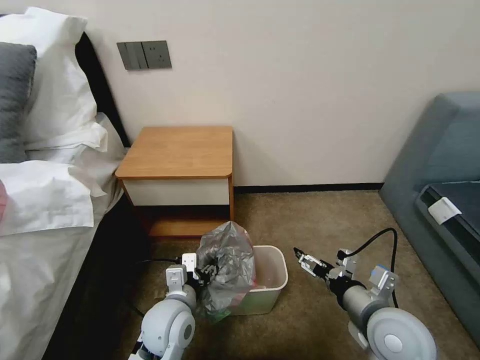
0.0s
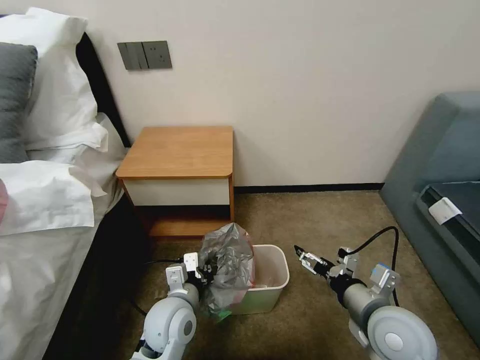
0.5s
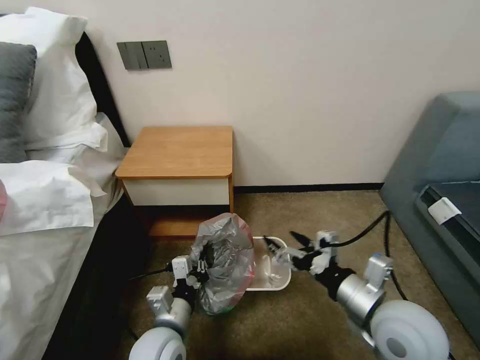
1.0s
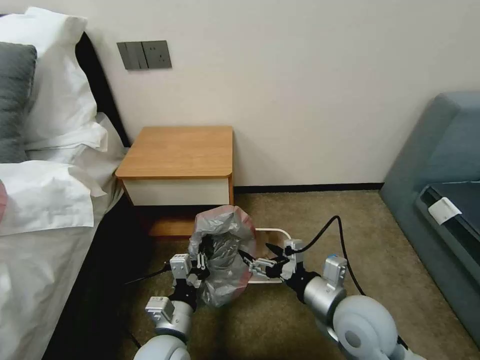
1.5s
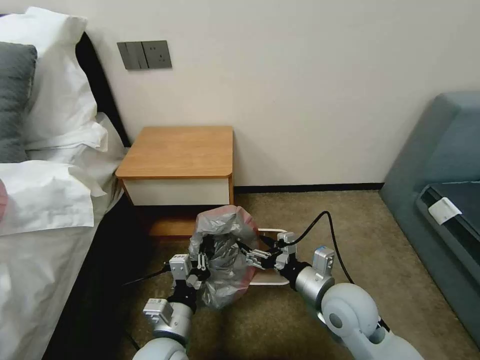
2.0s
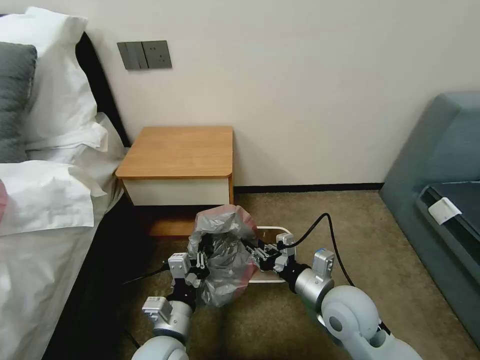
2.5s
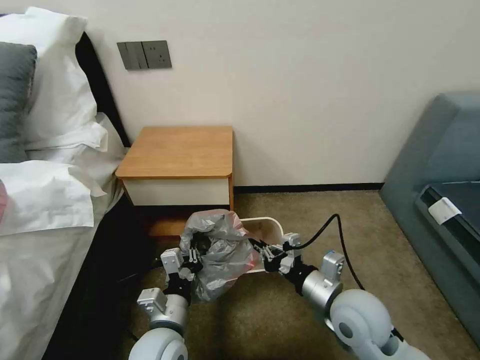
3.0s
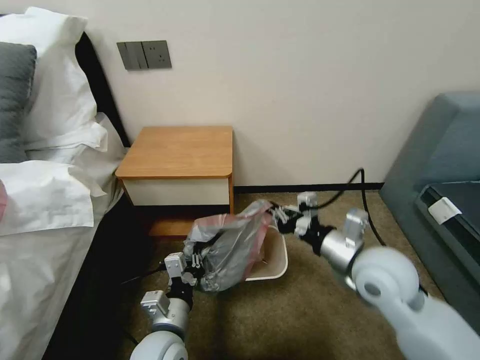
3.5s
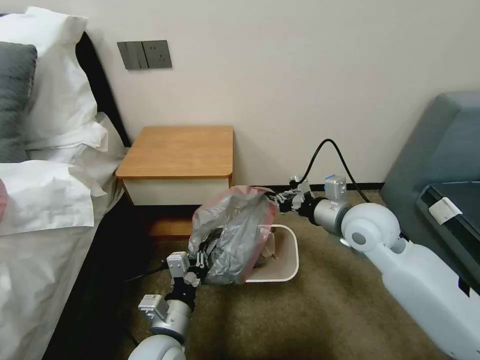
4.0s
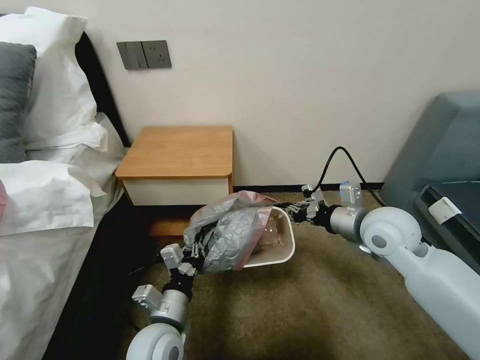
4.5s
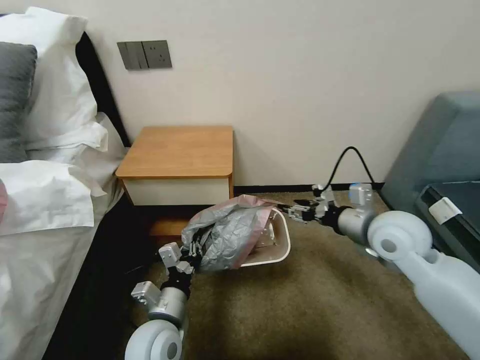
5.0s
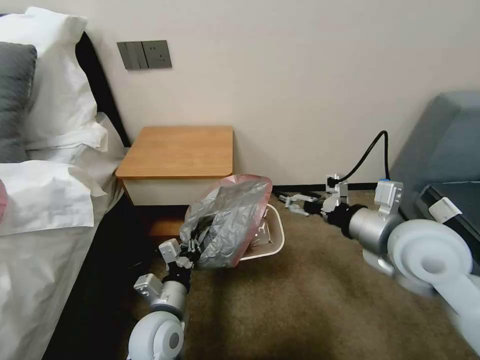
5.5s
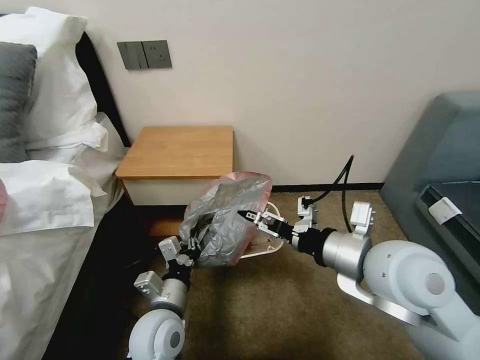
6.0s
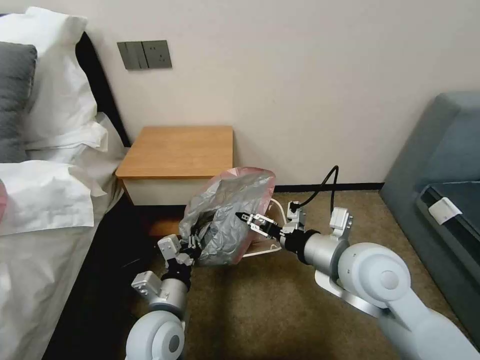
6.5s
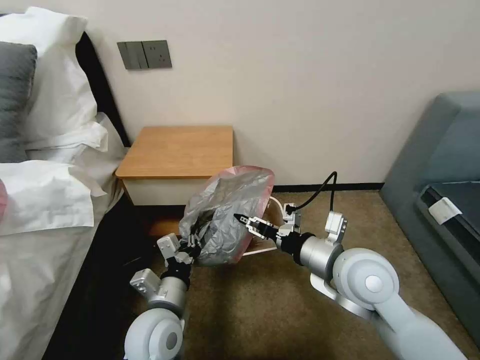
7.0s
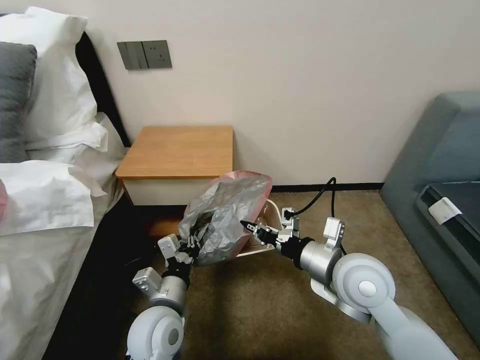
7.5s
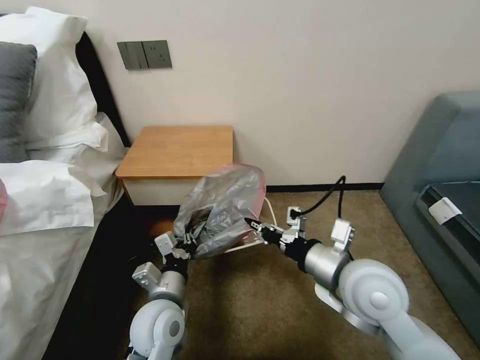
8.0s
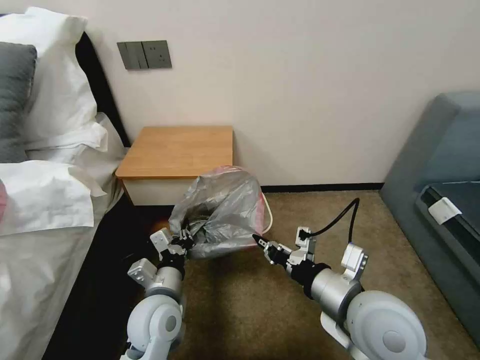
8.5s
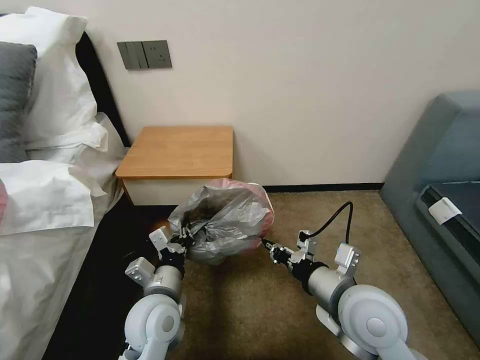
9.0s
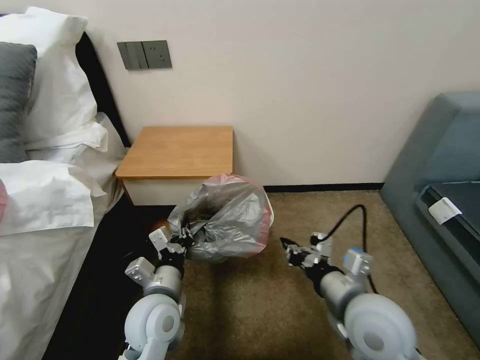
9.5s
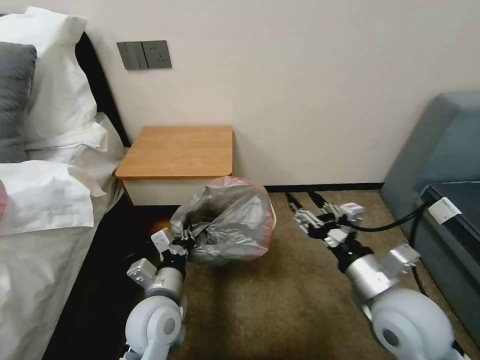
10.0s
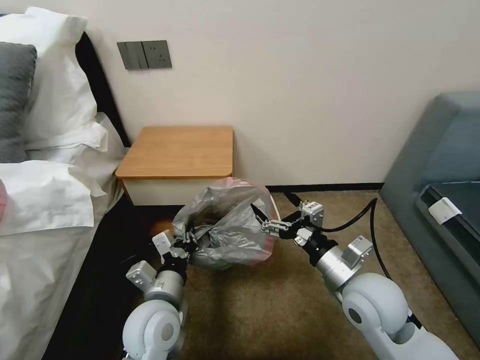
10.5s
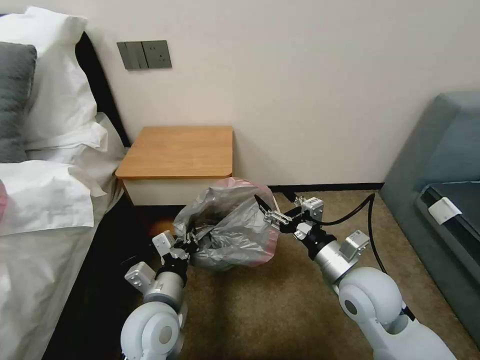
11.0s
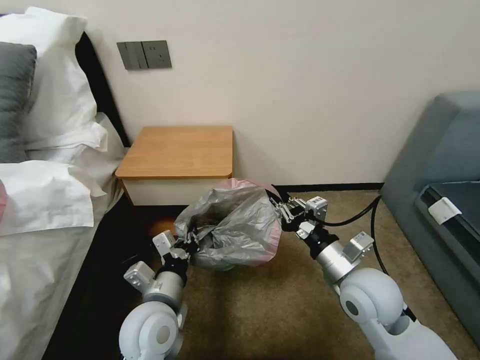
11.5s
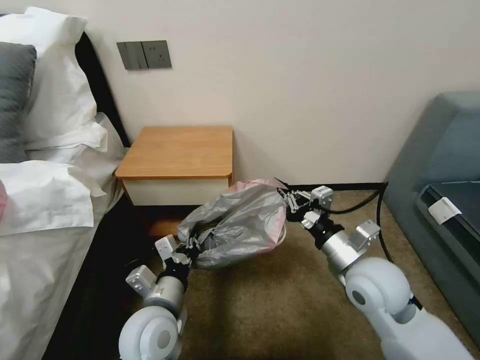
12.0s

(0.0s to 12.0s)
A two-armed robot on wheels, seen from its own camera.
Task of the whole recording: Pick up the garbage bag from the table and place it over the trash can.
0.0s - 2.0s: The left gripper goes some 5 cm backward, and closes. The right gripper shifts approximately 5 cm to the left.
2.0s - 4.0s: The right gripper travels forward and upward by approximately 15 cm, and closes its fingers.
4.0s - 6.0s: The right gripper goes about 15 cm backward and upward, and opens its fingers.
6.0s - 8.0s: The right gripper shifts about 5 cm downward, and closes its fingers.
8.0s - 10.0s: The right gripper ends up some 5 cm from where it was, and opens up.
10.0s - 12.0s: The right gripper heads forward, covering approximately 5 cm, and closes up.

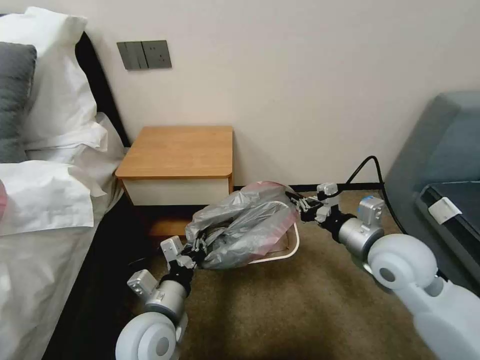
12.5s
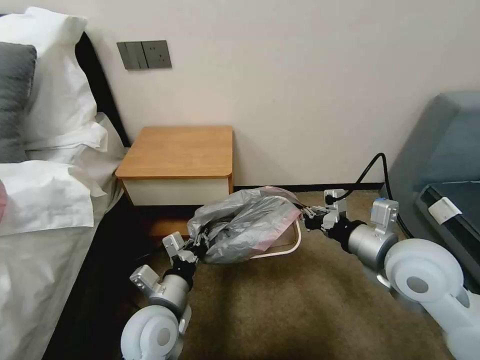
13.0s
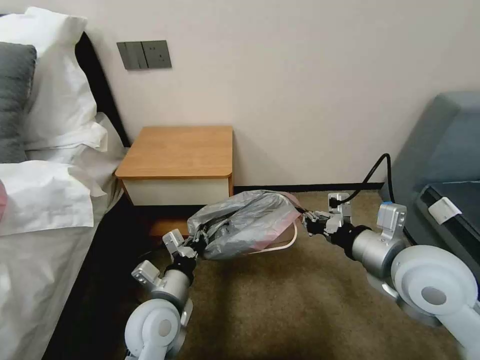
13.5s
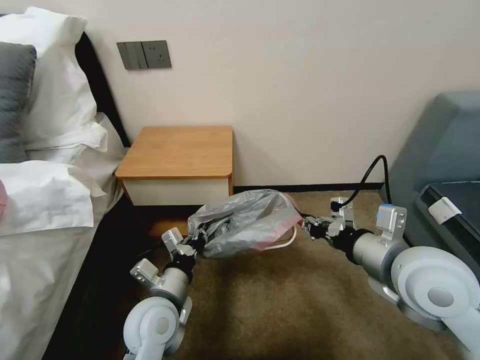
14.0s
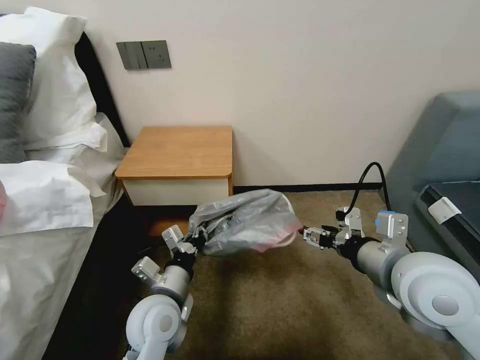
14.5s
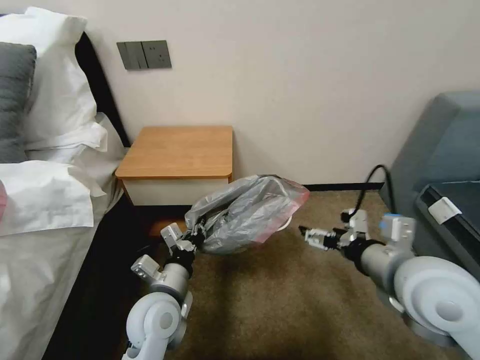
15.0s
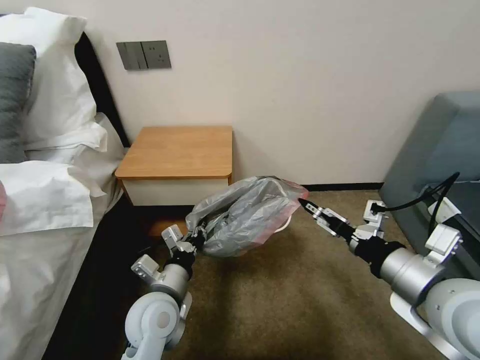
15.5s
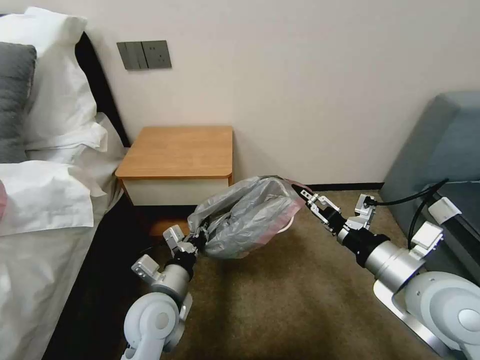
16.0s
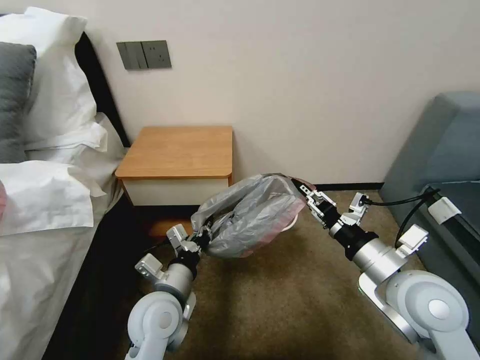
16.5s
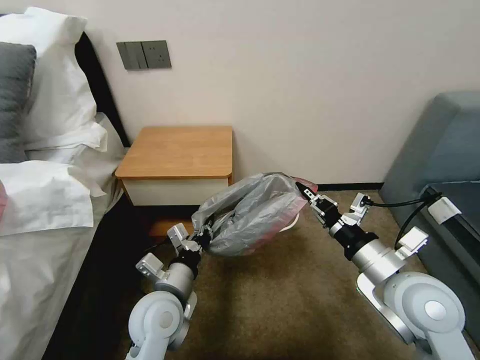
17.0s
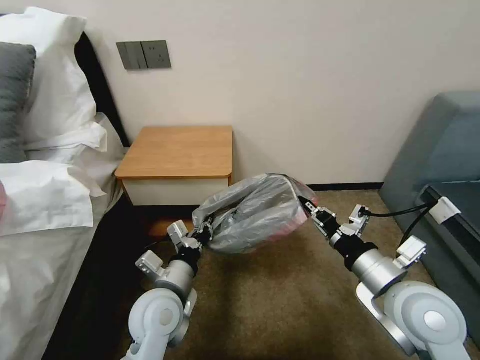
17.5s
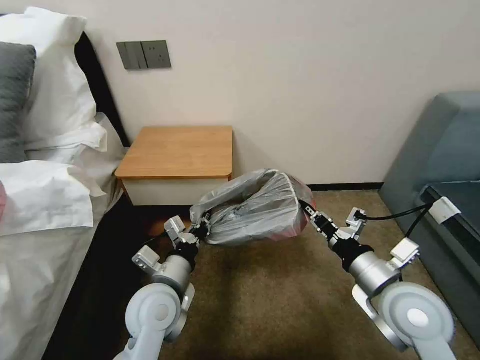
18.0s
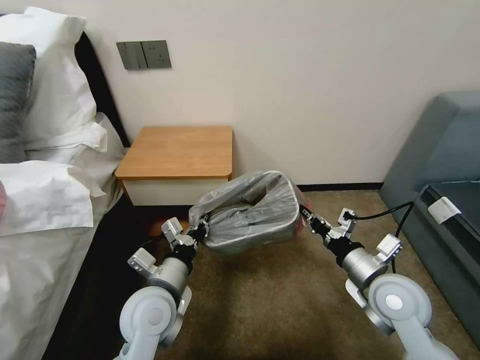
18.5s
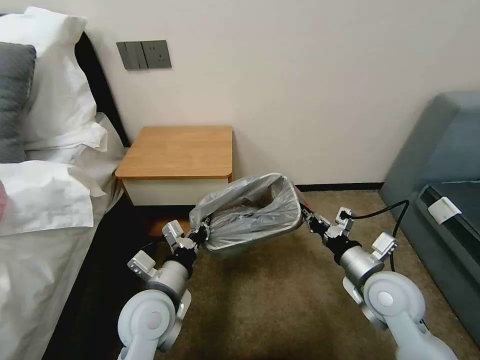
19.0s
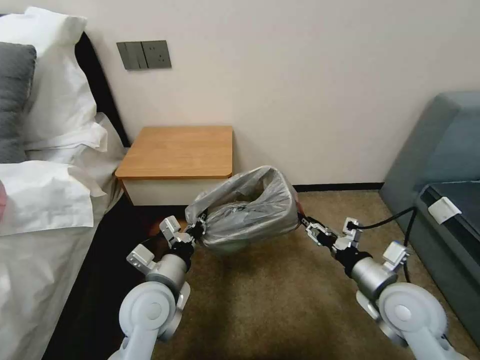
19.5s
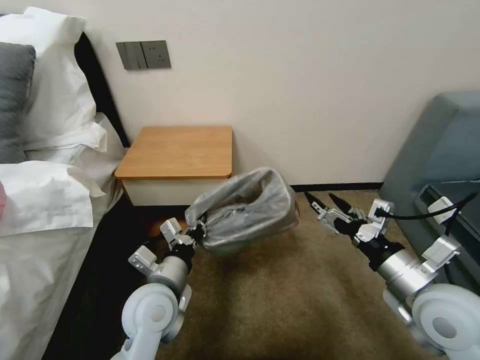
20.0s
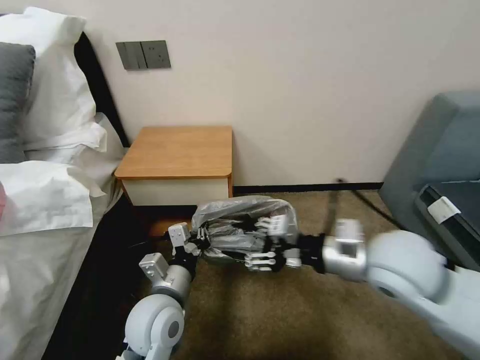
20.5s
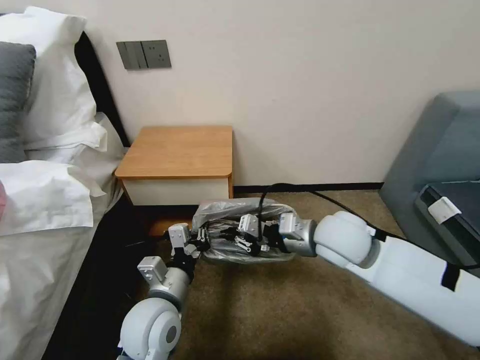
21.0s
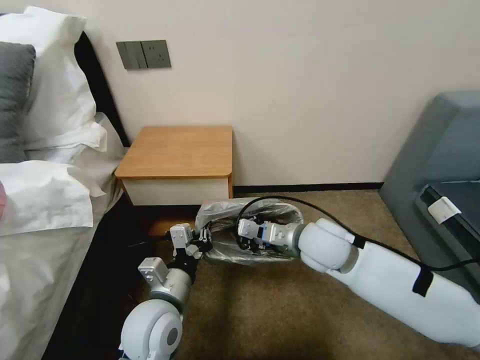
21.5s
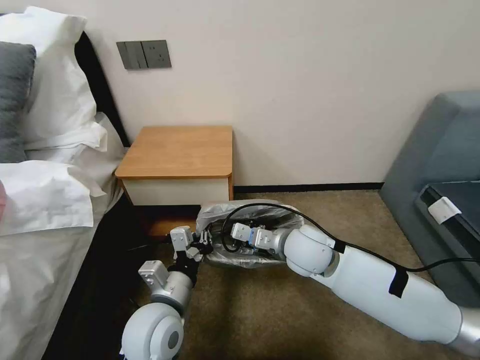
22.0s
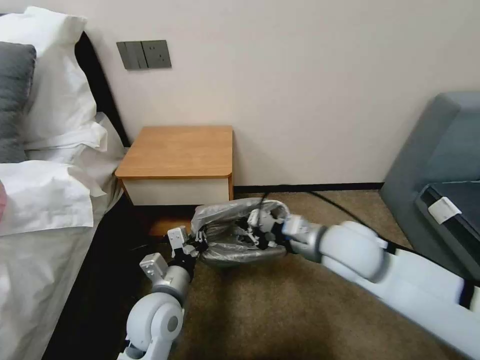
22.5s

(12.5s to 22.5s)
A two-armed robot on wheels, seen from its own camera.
Task of the whole recording: Pick up the garbage bag from the table and place it over the trash can.
12.5s - 14.5s: The right gripper heads backward, covering roughly 5 cm, and opens up.
14.5s - 16.5s: The right gripper closes its fingers.
16.5s - 18.5s: The right gripper shifts some 5 cm downward, and closes its fingers.
18.5s - 20.5s: The right gripper moves upward, approximately 10 cm, and opens.
20.5s - 22.5s: The right gripper closes.

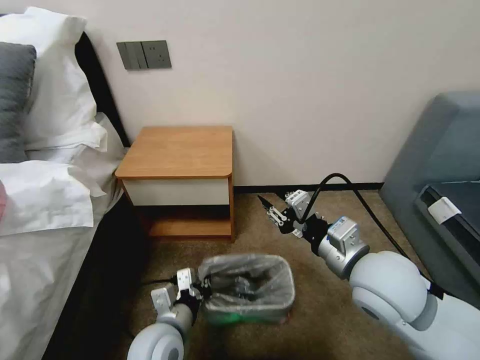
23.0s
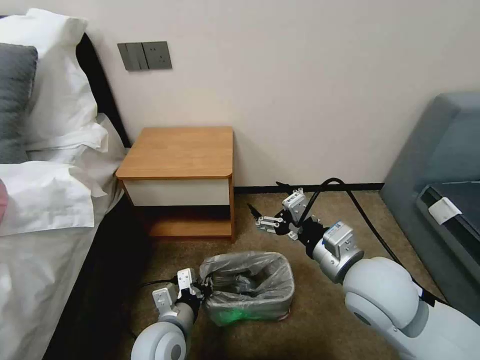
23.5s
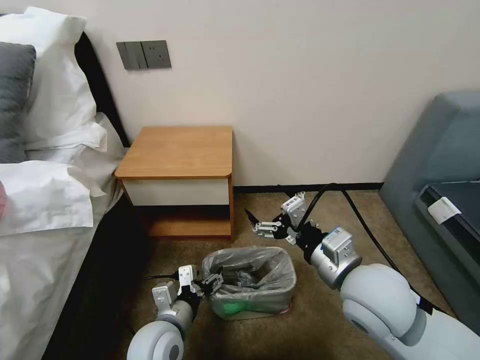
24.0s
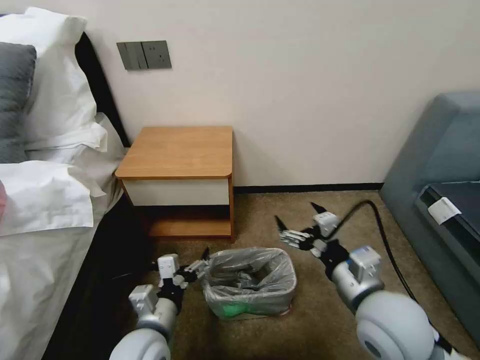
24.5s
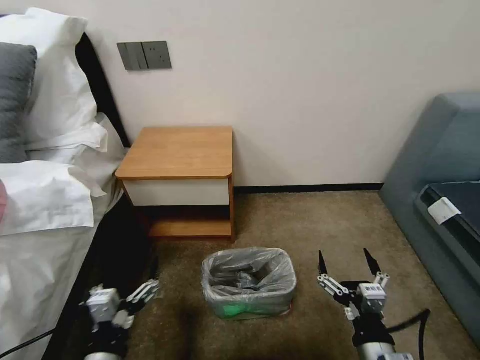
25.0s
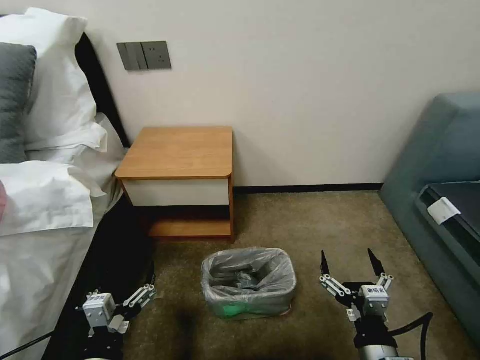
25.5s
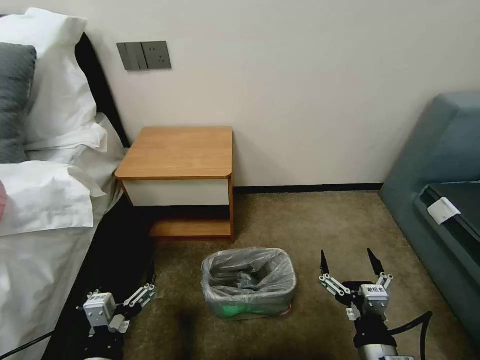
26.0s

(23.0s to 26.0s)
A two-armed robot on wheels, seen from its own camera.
Task of the whole recording: Pick up the garbage bag from the table and place it over the trash can.
23.0s - 24.5s: The left gripper opens. The right gripper moves some 5 cm, and opens.
24.5s - 26.0s: The left gripper heads backward and to the left, covering about 15 cm. The right gripper is displaced backward and downward by approximately 15 cm.
